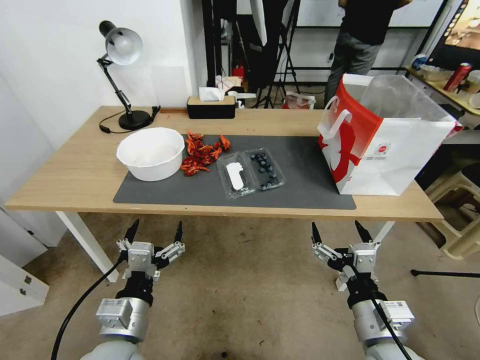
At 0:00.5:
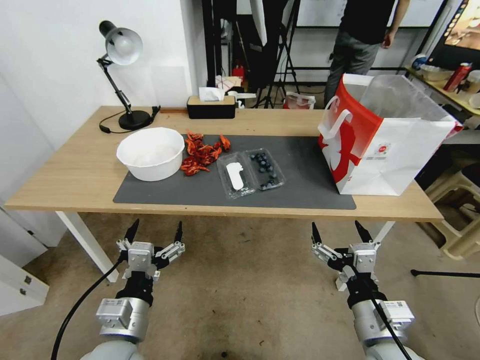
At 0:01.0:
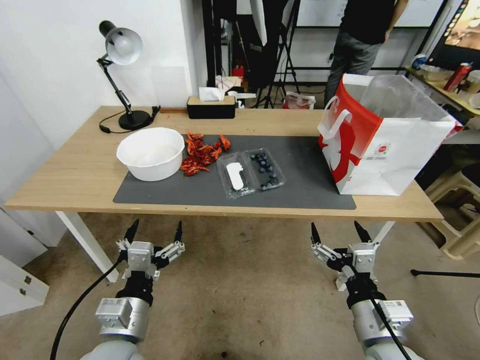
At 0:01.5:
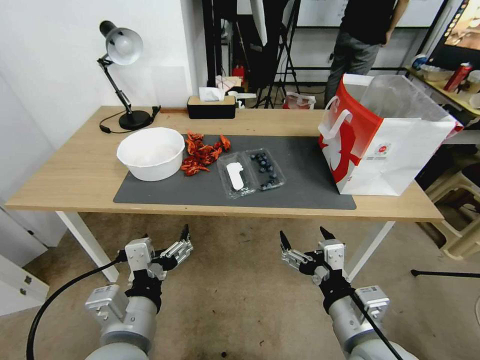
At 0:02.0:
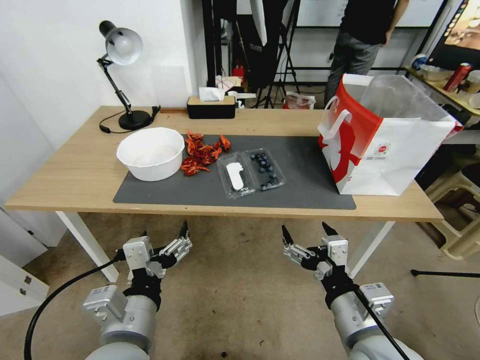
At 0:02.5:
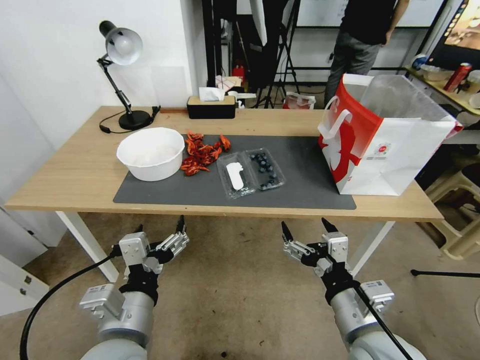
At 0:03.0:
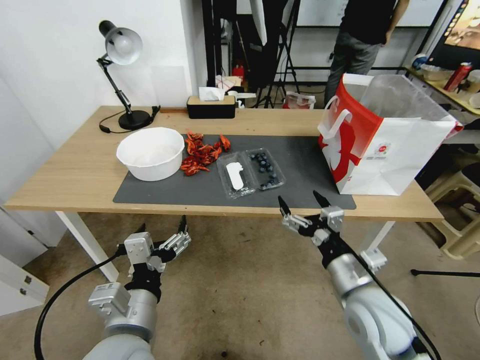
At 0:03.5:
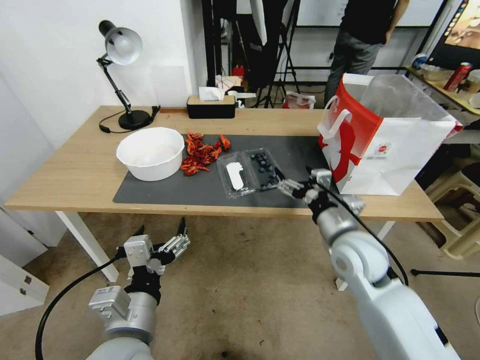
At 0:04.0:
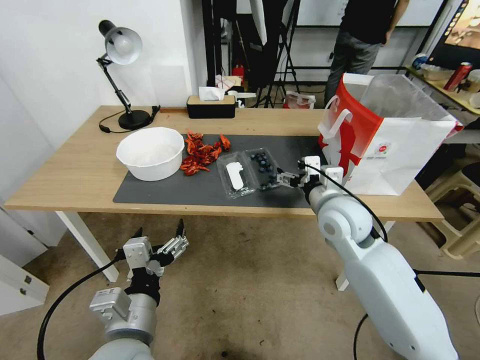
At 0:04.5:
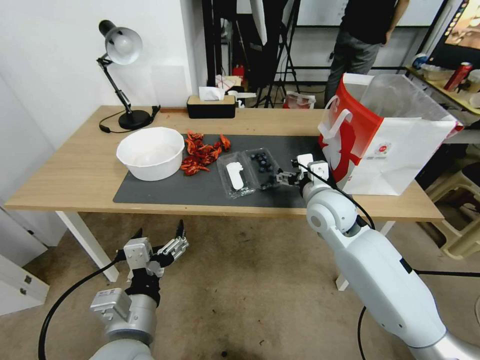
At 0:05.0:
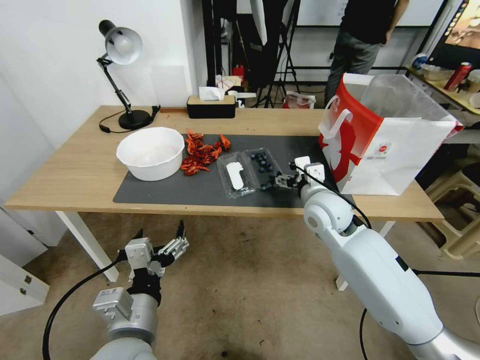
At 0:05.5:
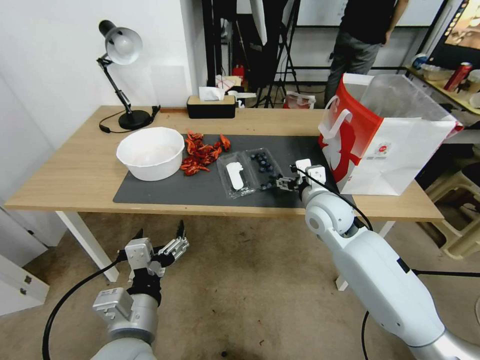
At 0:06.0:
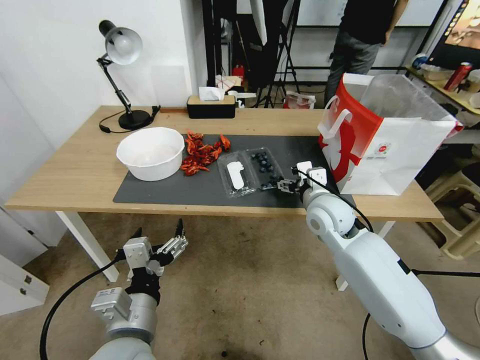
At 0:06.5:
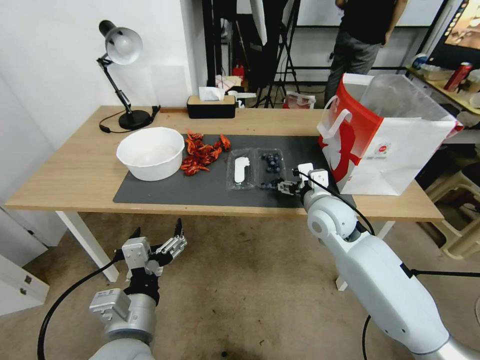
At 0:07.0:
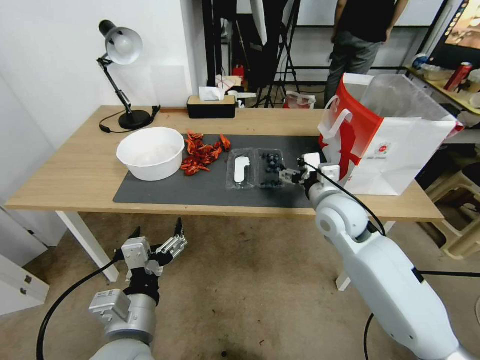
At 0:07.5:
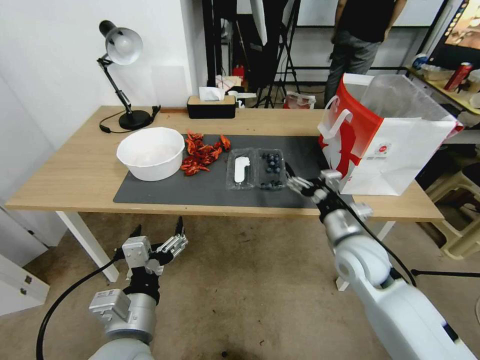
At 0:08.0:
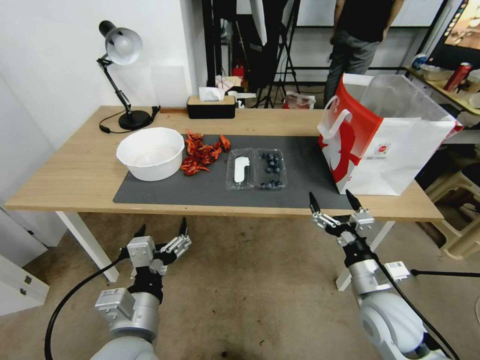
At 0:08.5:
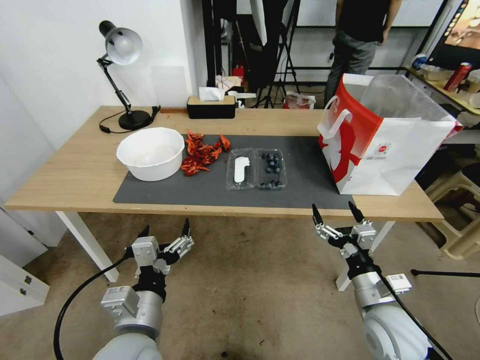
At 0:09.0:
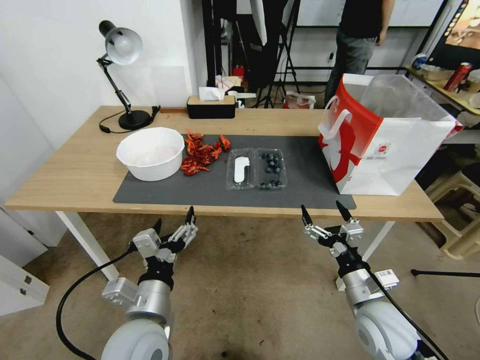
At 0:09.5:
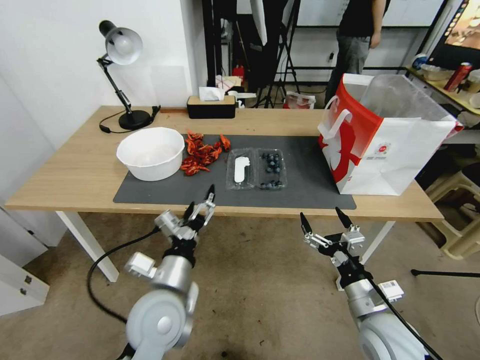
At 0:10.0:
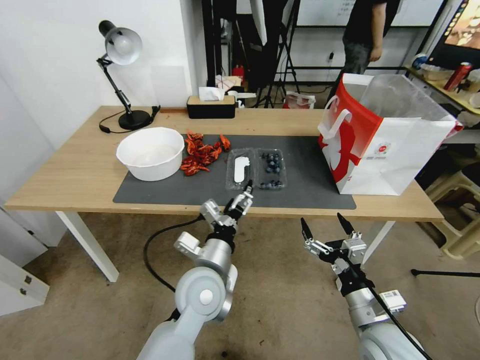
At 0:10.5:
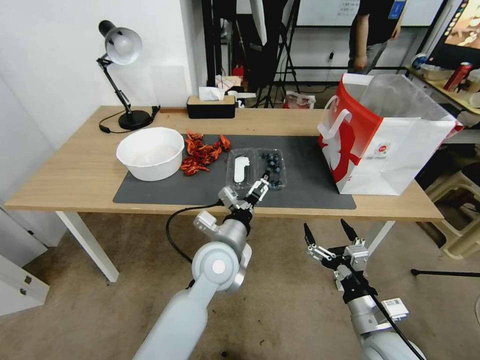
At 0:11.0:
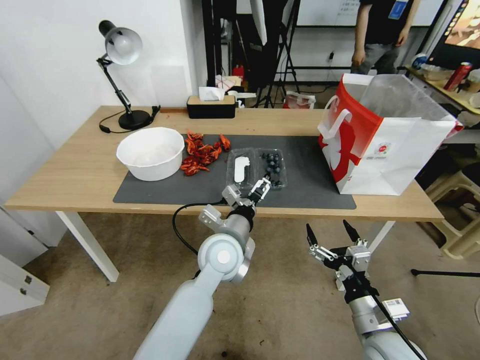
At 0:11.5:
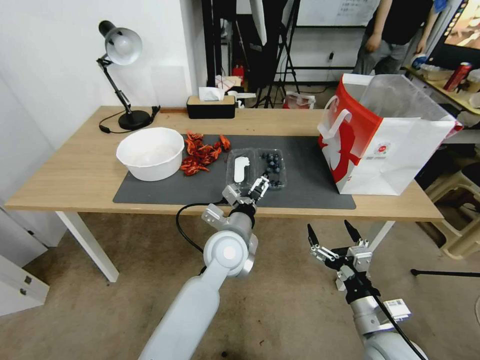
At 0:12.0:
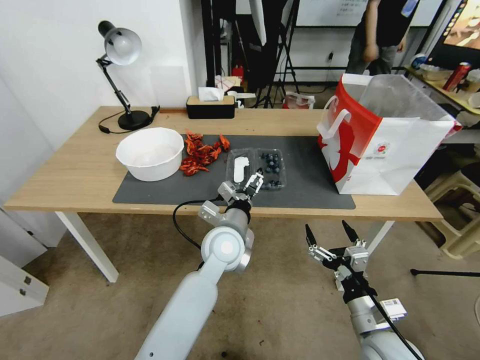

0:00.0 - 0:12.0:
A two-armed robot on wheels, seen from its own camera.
Task of the whole recording: Close the takeout container lid, then place the container into the takeout bag.
0:02.0 - 0:04.0: The right gripper is displaced forward by approximately 25 cm.
0:04.0 - 0:06.0: The grippers stay close to where they were, moving slightly.
0:06.0 - 0:08.0: The right gripper travels backward, downward and to the right by roughly 20 cm.
0:08.0 - 0:10.0: The left gripper moves forward and to the right, approximately 15 cm, while the right gripper travels backward by roughly 5 cm.
0:10.0 - 0:12.0: The left gripper heads forward, covering approximately 10 cm.

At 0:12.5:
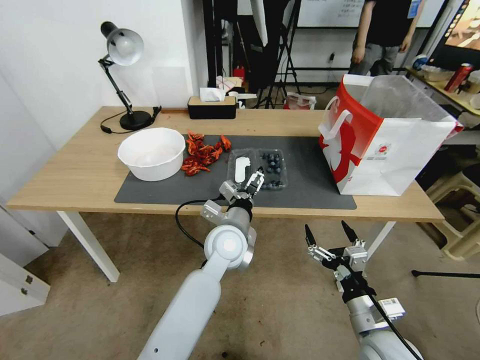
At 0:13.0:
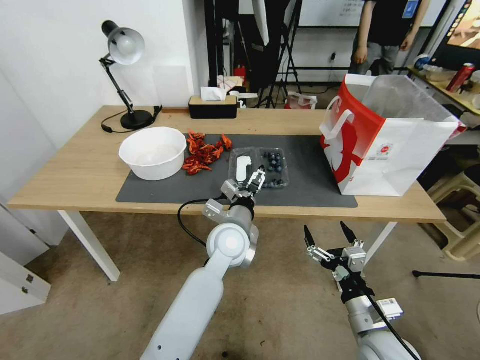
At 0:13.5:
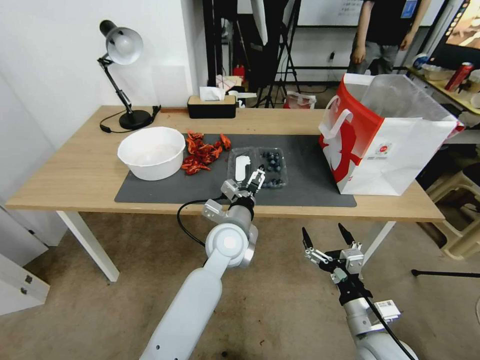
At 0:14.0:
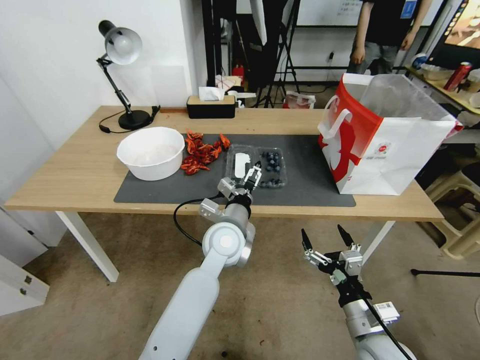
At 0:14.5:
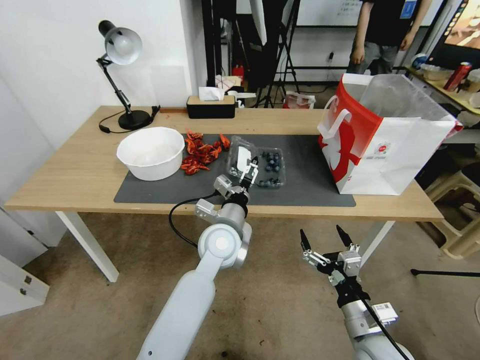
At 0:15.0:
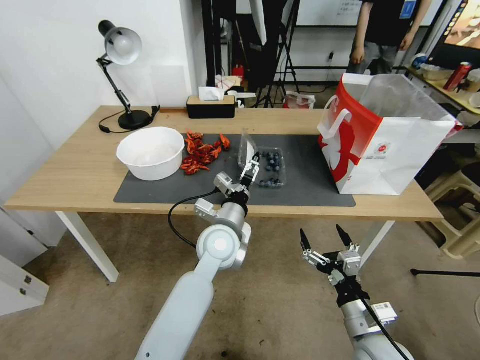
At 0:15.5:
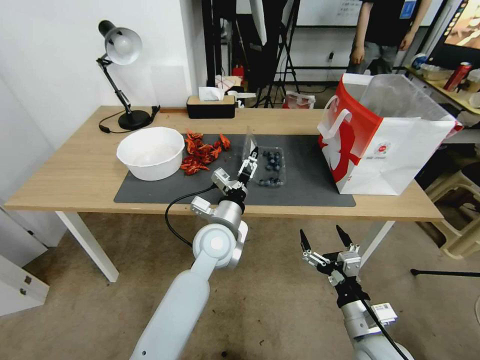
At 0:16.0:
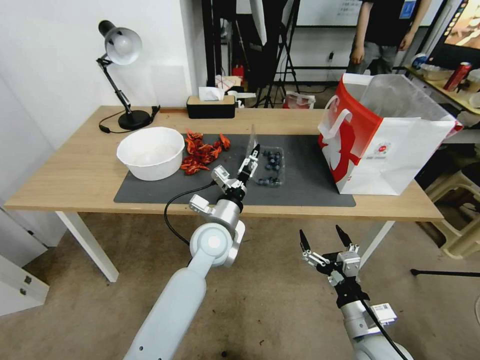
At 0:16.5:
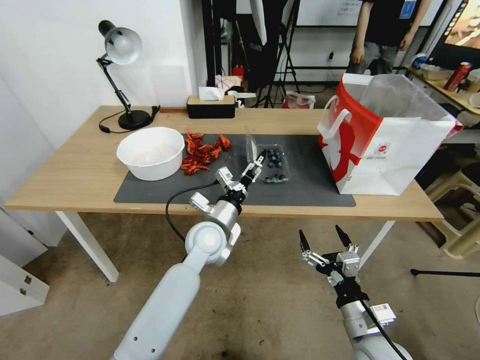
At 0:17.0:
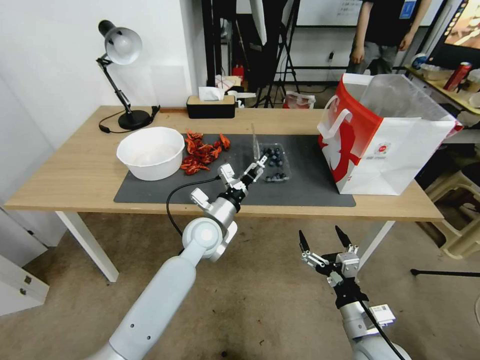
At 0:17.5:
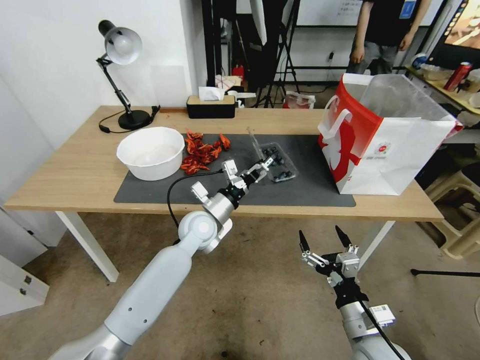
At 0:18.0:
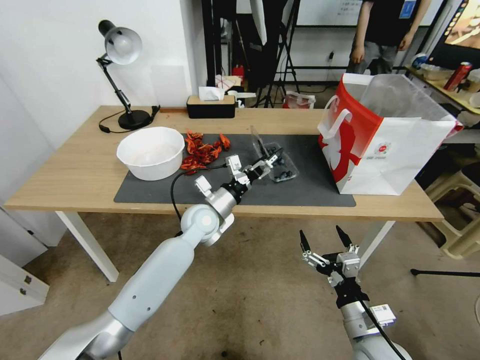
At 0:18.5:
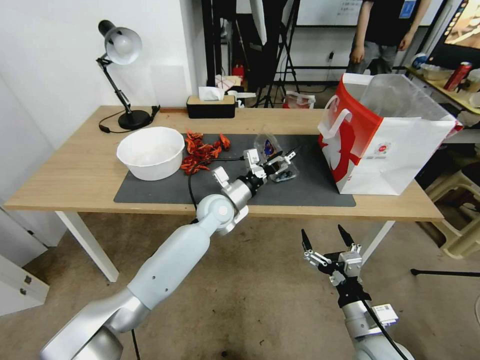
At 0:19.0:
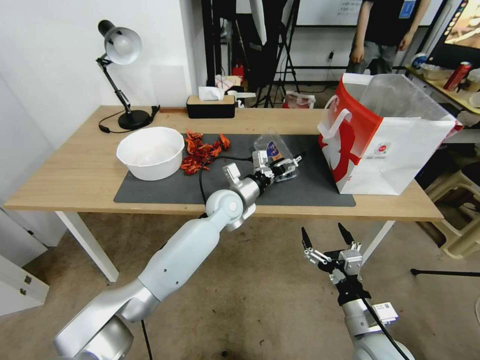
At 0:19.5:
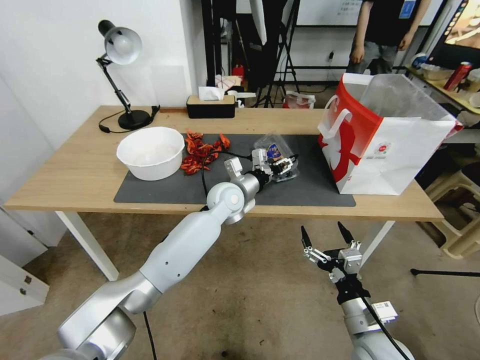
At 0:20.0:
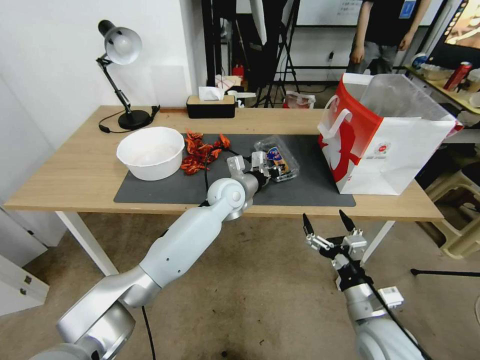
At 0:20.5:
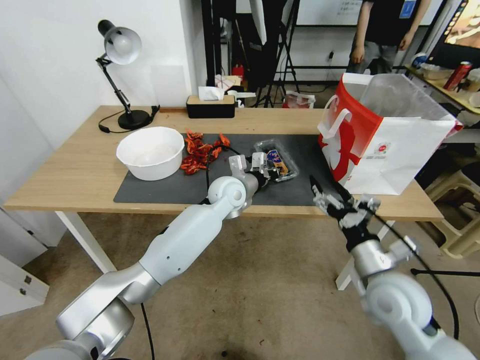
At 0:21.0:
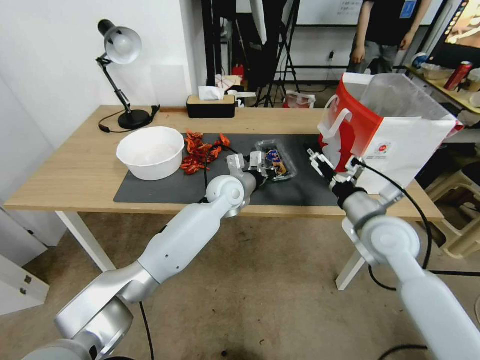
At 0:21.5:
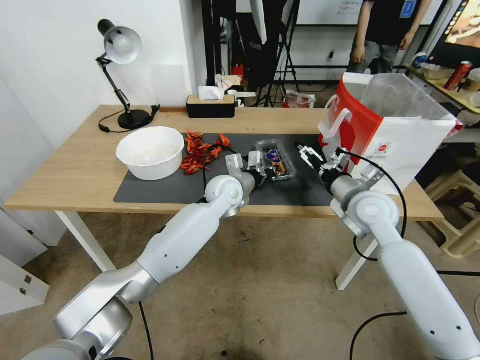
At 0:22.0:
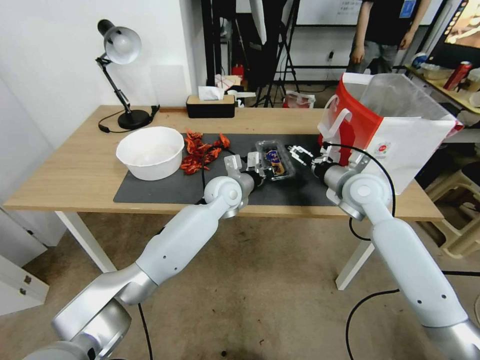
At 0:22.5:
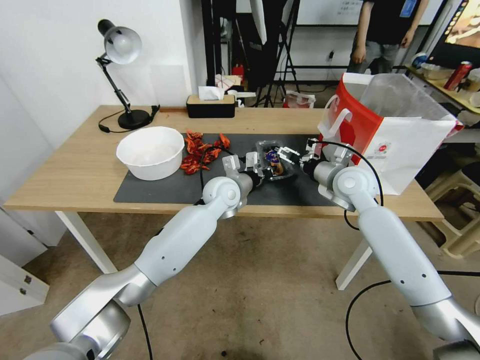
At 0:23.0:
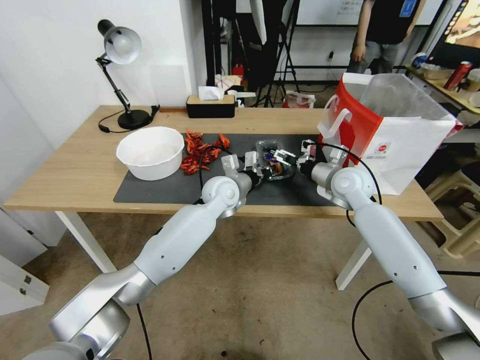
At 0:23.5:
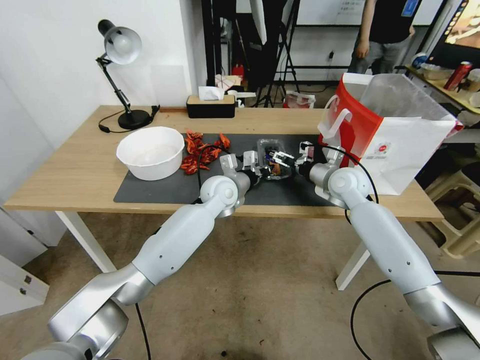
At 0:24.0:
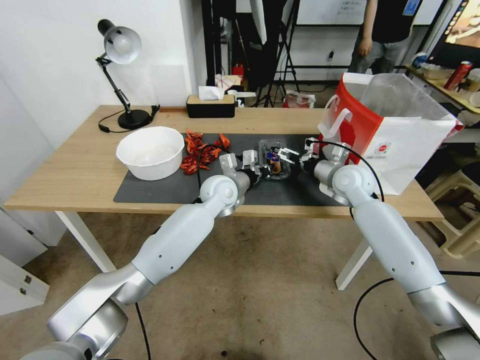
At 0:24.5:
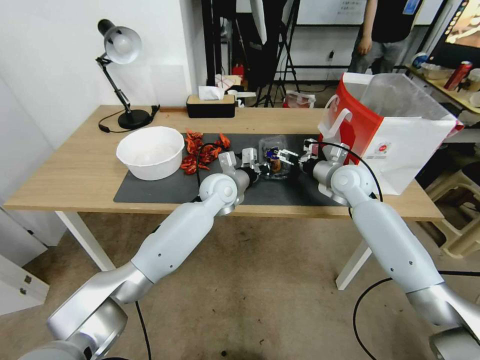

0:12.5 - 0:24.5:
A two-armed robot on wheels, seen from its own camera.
Task of the whole recording: Close the takeout container lid, then place the container into the takeout bag.
0:12.5 - 0:14.5: There are only small adjustments of the grippers.
0:16.5 - 0:18.5: The left gripper heads forward, covering some 10 cm.
0:18.5 - 0:20.5: The left gripper ends up some 5 cm from where it was, and closes up; the right gripper is displaced upward and forward by approximately 10 cm.
0:20.5 - 0:22.5: The right gripper heads forward, covering roughly 25 cm.
0:22.5 - 0:24.5: There are only small adjustments of the grippers.

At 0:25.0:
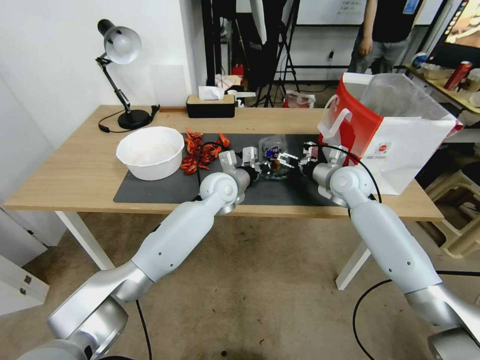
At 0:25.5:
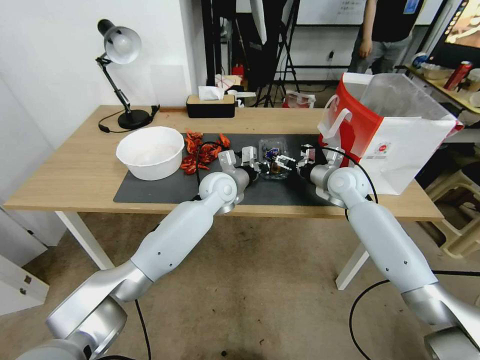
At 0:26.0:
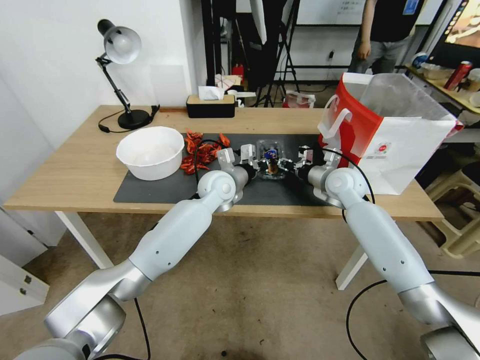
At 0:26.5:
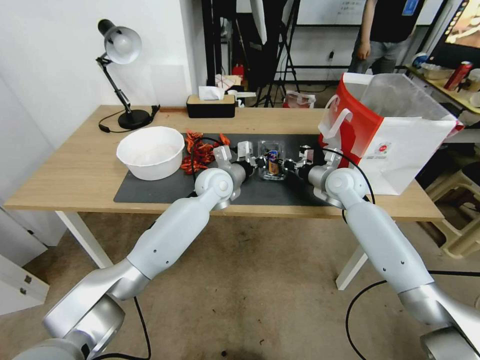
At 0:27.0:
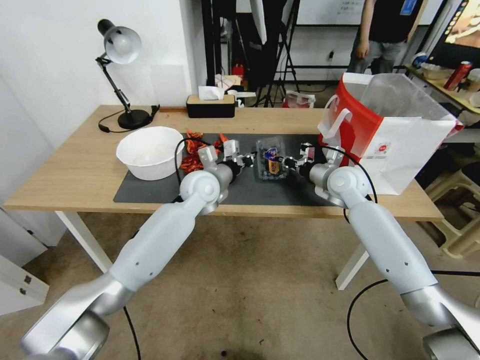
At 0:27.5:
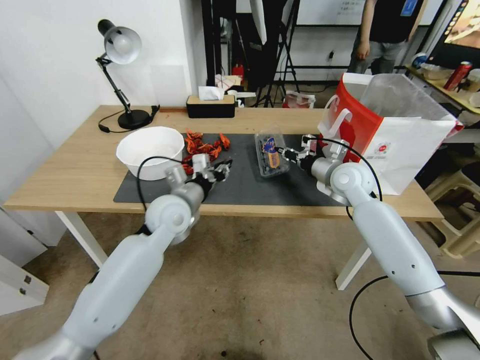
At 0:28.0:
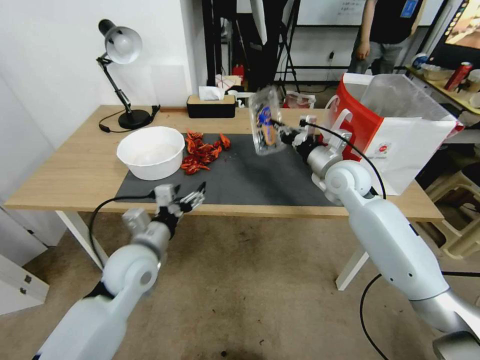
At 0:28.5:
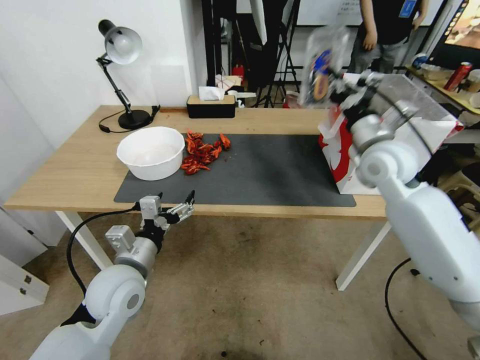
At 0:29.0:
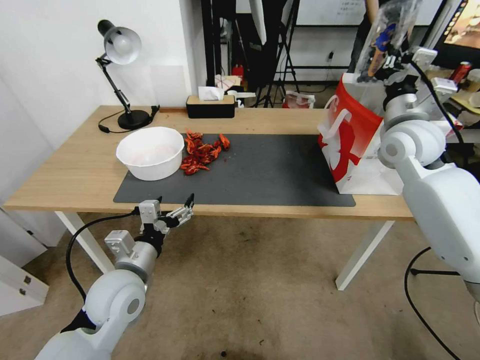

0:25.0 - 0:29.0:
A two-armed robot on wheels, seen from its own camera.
Task of the whole recording: Close the takeout container lid, then place the container into the takeout bag.
0:25.0 - 0:27.0: The right gripper closes its fingers. Meanwhile the left gripper shifts by roughly 5 cm.
0:27.0 - 0:29.0: The right gripper goes about 15 cm upward. The left gripper shifts about 25 cm backward and to the left, and opens its fingers.
